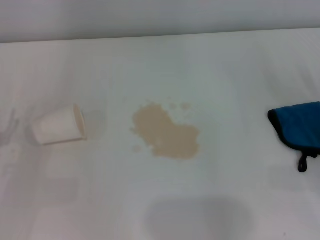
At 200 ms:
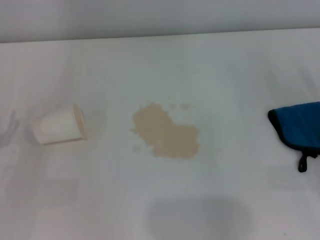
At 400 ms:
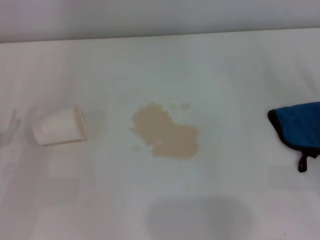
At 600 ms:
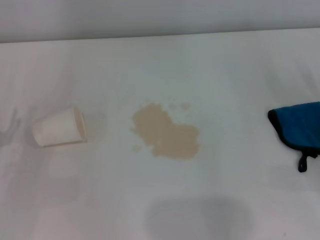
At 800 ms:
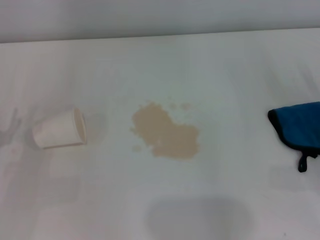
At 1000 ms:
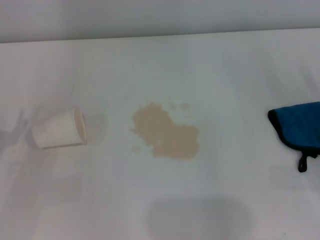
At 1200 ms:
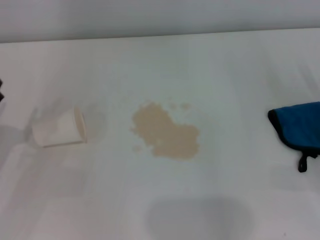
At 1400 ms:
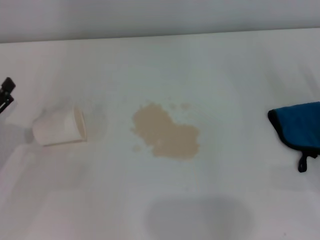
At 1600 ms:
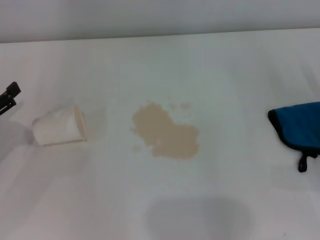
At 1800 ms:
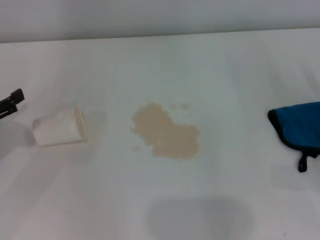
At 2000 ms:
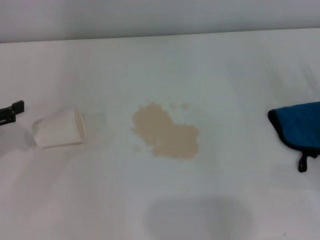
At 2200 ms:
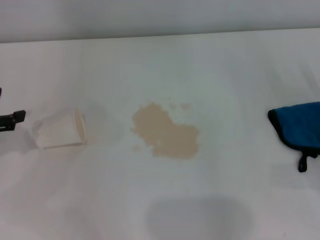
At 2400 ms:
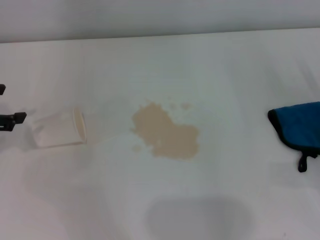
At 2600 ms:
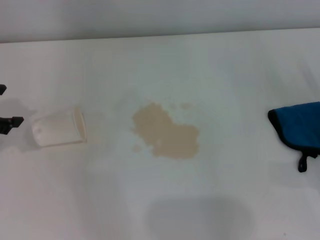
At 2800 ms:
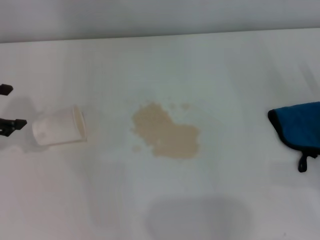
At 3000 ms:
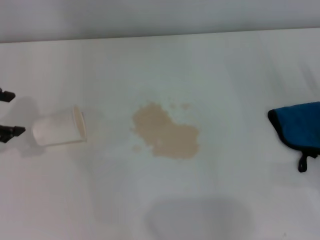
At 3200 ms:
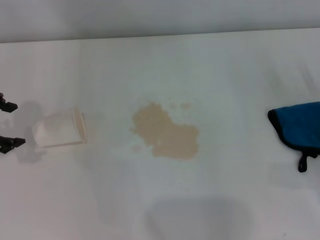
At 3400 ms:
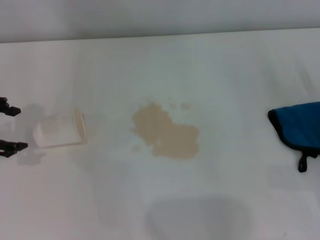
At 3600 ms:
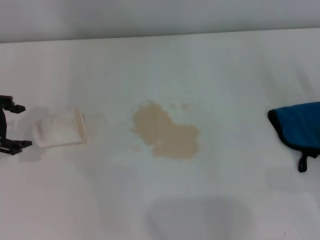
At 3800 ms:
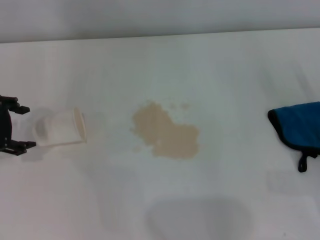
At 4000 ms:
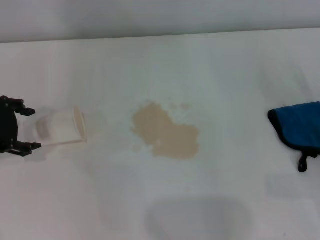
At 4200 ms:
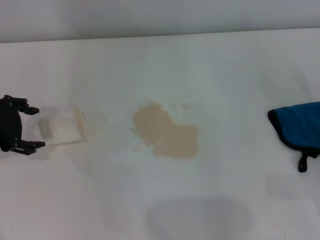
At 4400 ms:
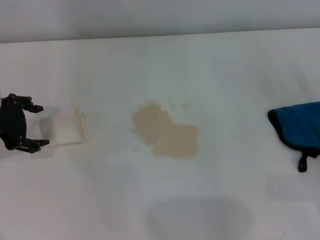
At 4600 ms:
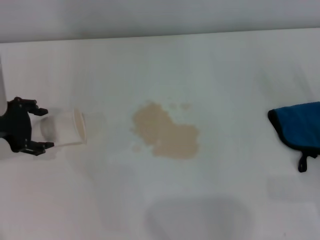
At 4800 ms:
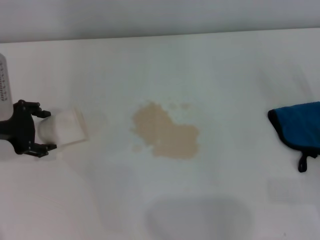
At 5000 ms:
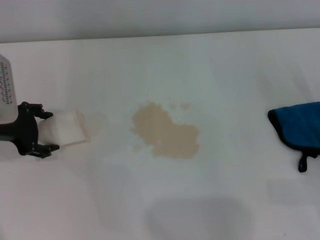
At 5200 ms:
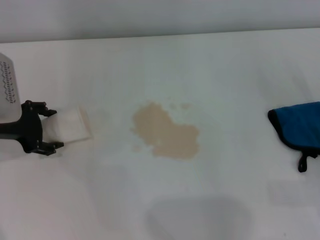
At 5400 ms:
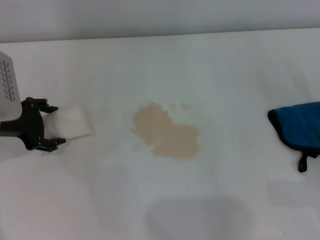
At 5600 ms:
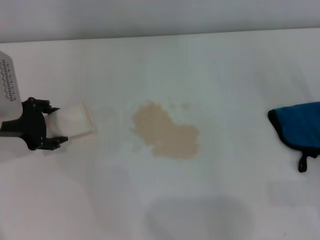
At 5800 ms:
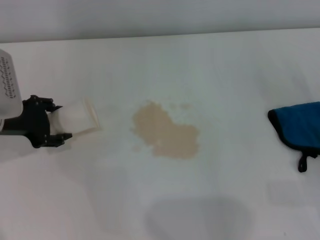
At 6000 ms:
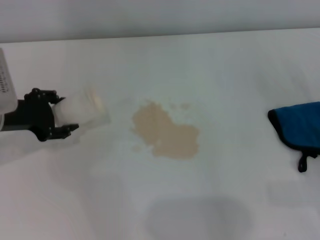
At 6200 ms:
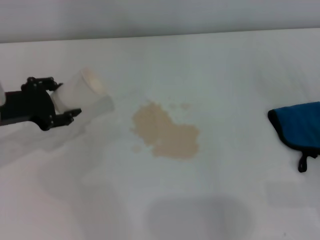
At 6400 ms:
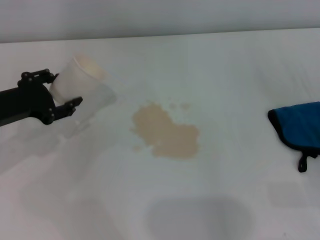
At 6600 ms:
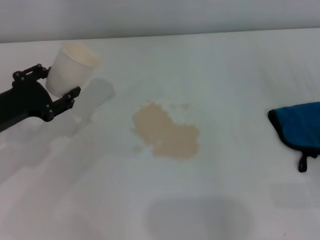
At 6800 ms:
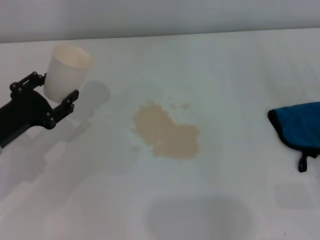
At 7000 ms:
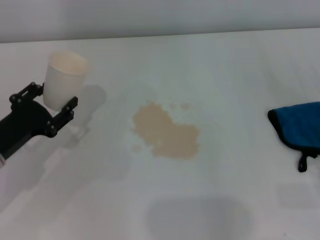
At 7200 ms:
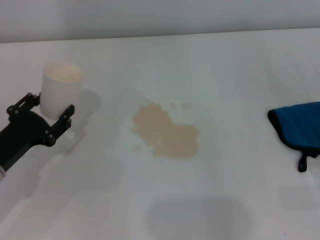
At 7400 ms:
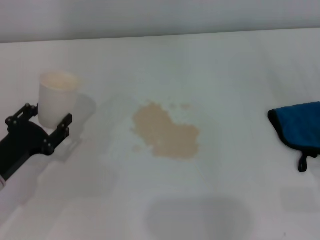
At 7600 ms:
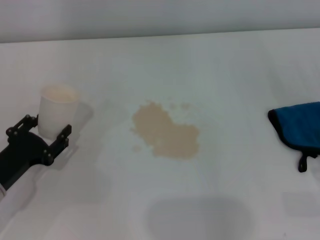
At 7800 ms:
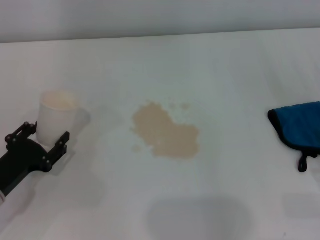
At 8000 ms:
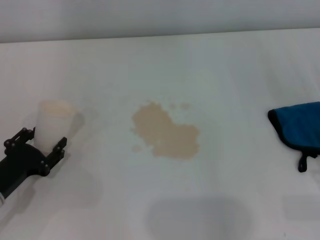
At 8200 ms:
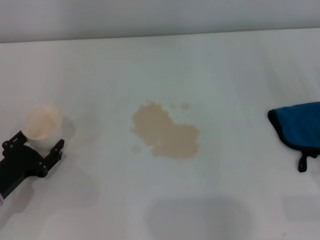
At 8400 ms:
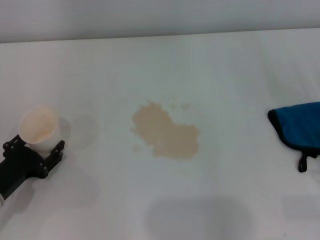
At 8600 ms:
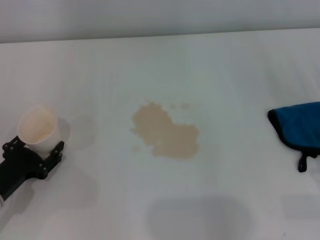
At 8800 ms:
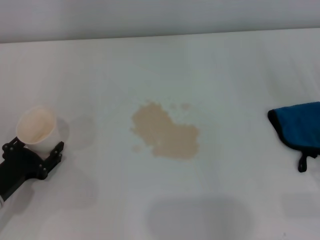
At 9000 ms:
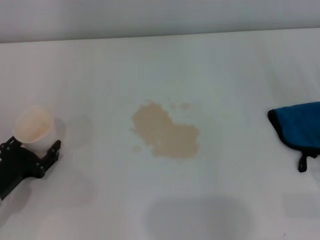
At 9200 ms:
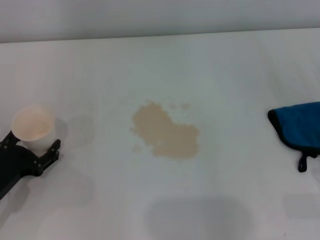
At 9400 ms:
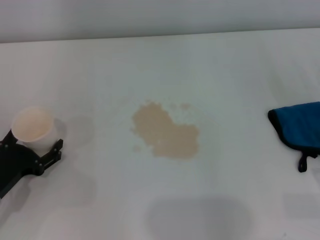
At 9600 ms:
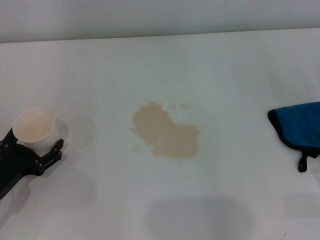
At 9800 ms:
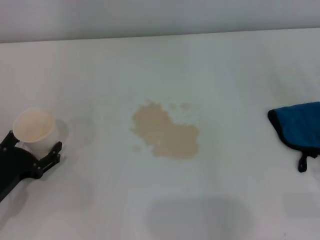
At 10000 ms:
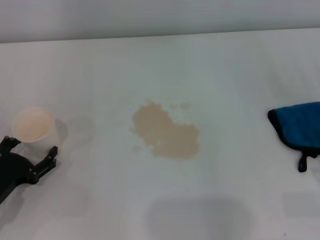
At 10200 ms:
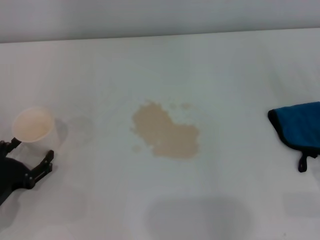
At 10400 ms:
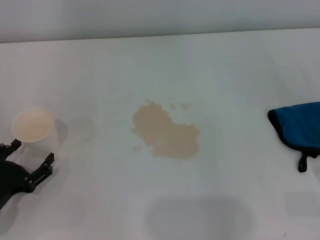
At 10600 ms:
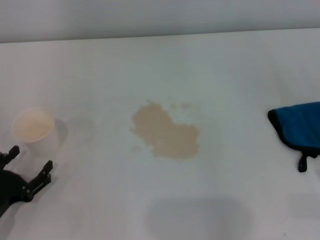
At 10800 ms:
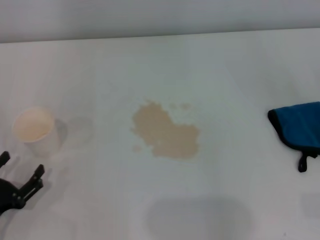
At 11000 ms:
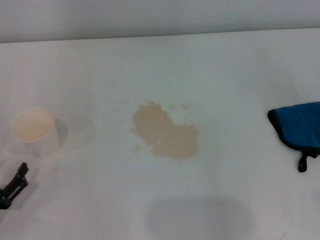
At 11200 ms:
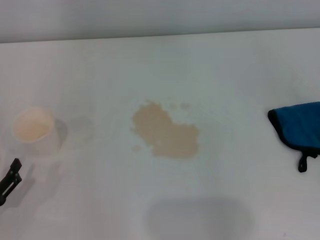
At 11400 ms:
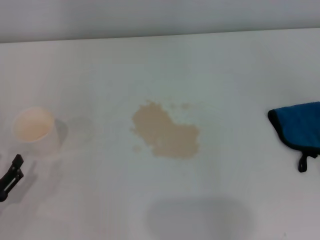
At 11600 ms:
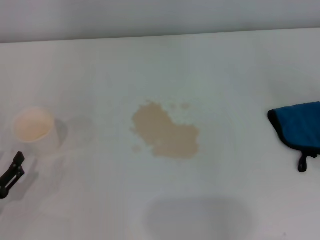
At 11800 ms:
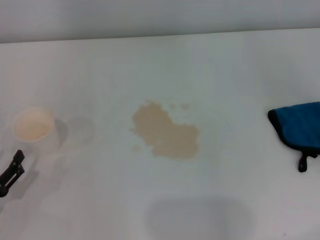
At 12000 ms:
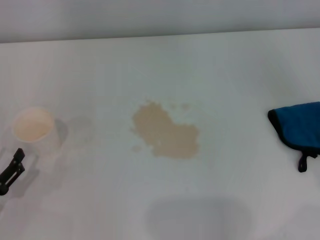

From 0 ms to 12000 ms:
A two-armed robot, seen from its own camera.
Step, from 0 ms to 5400 ms: Grasp the paper cup with the left gripper.
Step, from 5600 ms to 9800 ms: Stand the paper cup upright with the left gripper.
From 1600 ms to 3000 ms: The left gripper travels upward and forward by about 15 cm.
From 3000 ms to 4400 ms: The left gripper goes some 5 cm downward.
From 4400 ms to 6000 ms: The left gripper closes up.
From 6000 ms to 7600 ms: The left gripper shifts approximately 15 cm backward and downward.
From 7600 ms to 9000 ms: The grippers make only small movements.
From 9000 ms to 10400 ms: The left gripper opens up.

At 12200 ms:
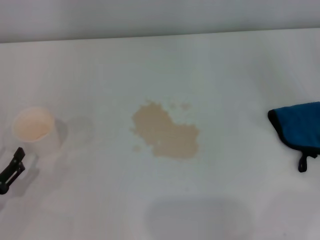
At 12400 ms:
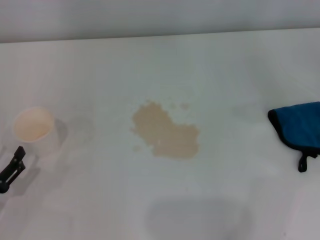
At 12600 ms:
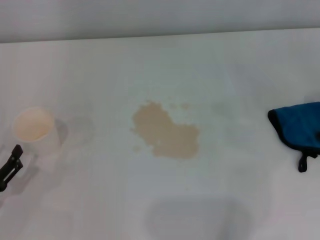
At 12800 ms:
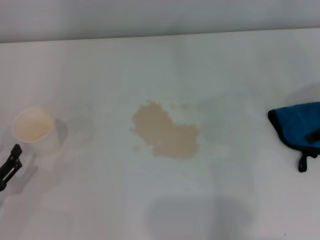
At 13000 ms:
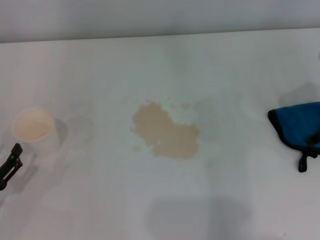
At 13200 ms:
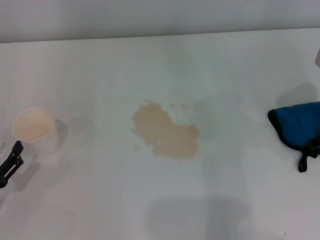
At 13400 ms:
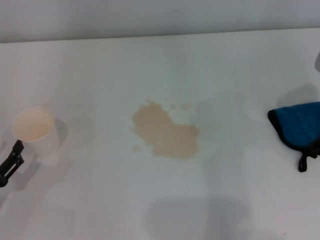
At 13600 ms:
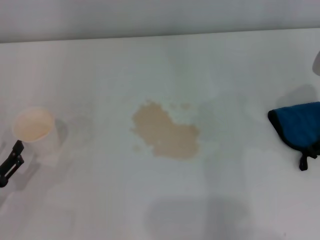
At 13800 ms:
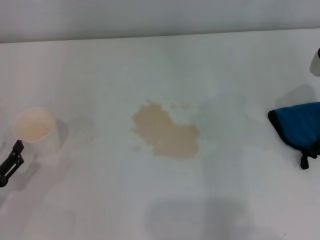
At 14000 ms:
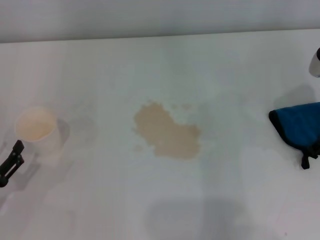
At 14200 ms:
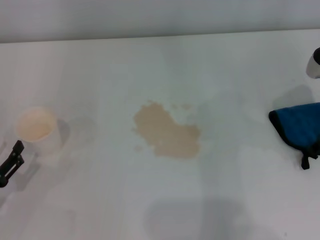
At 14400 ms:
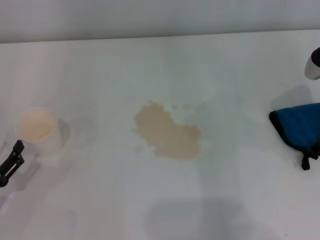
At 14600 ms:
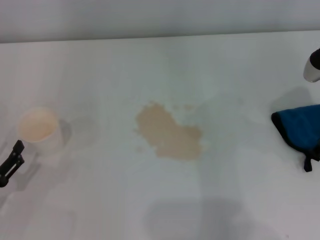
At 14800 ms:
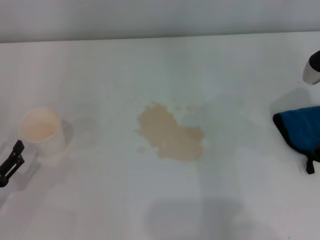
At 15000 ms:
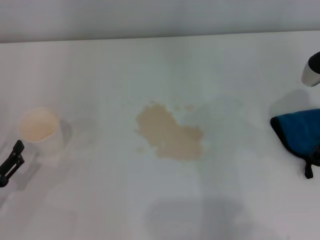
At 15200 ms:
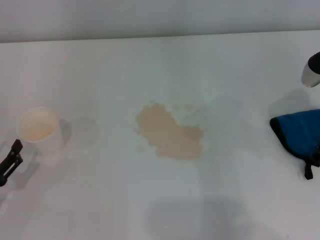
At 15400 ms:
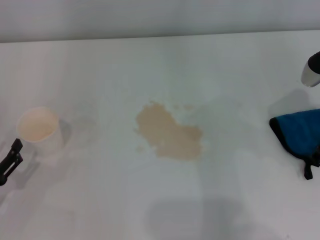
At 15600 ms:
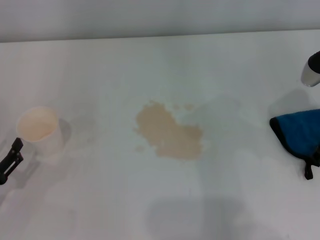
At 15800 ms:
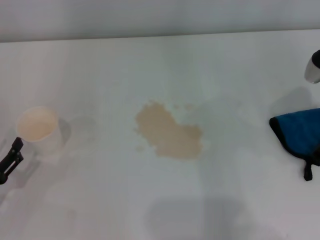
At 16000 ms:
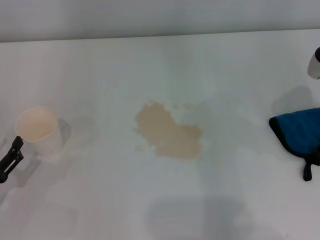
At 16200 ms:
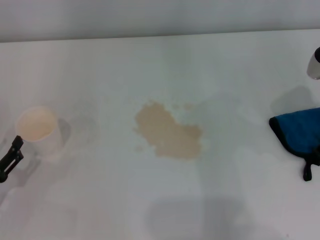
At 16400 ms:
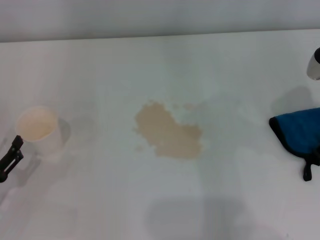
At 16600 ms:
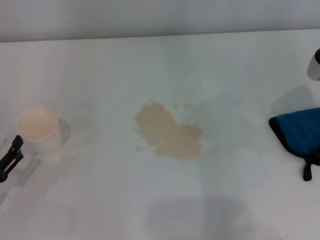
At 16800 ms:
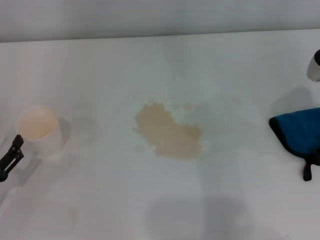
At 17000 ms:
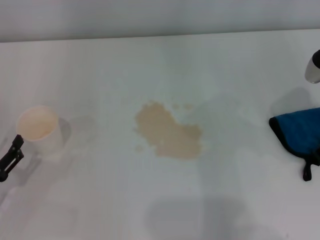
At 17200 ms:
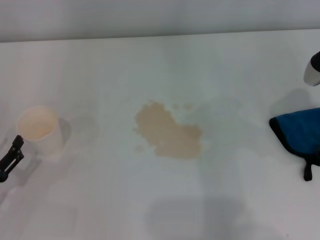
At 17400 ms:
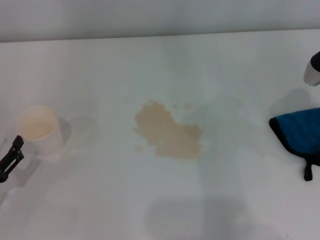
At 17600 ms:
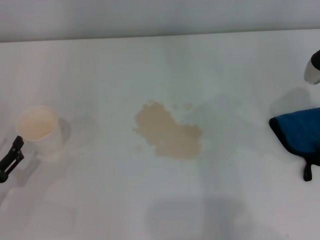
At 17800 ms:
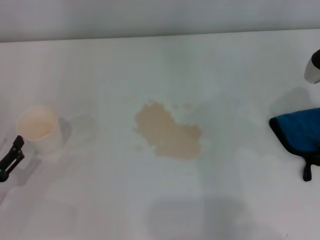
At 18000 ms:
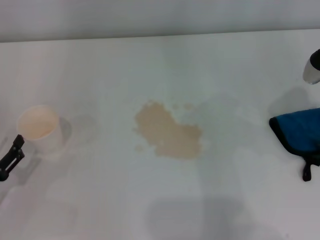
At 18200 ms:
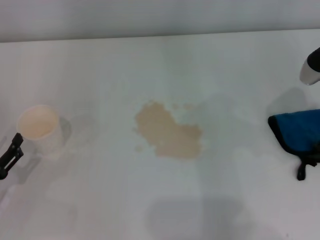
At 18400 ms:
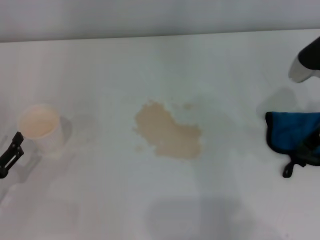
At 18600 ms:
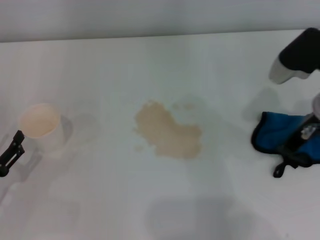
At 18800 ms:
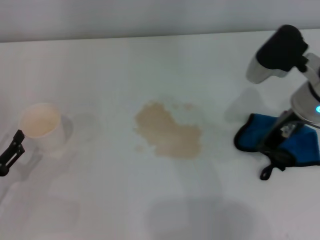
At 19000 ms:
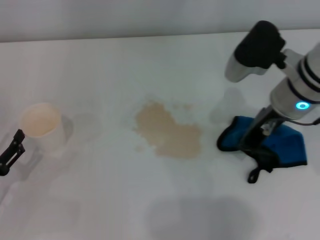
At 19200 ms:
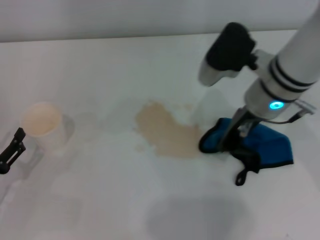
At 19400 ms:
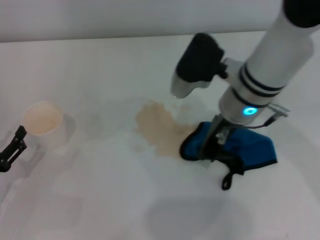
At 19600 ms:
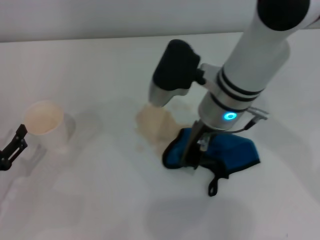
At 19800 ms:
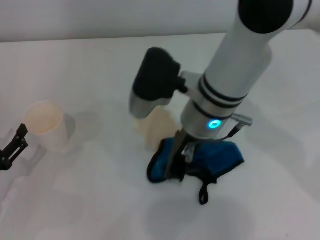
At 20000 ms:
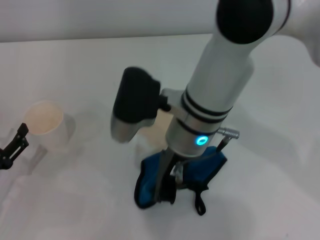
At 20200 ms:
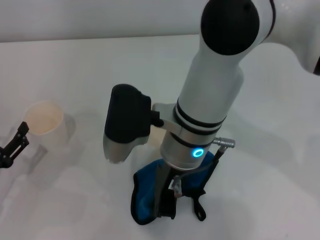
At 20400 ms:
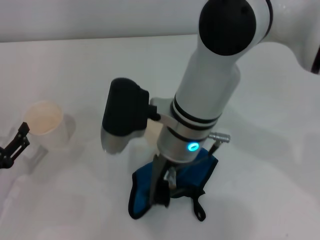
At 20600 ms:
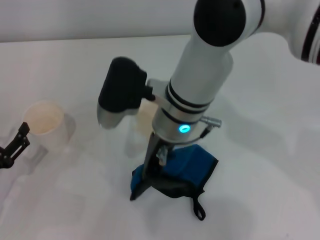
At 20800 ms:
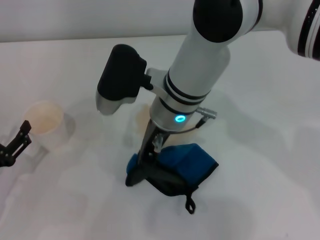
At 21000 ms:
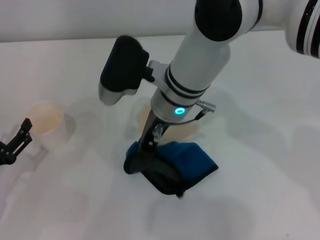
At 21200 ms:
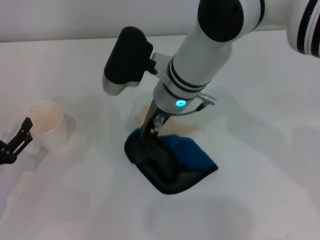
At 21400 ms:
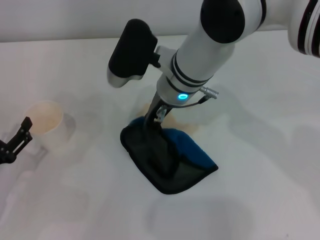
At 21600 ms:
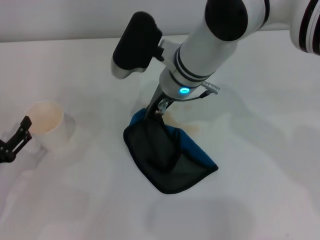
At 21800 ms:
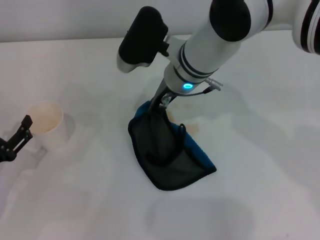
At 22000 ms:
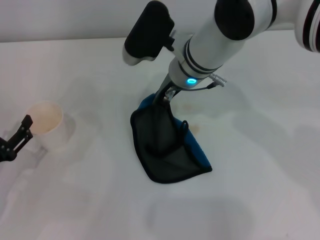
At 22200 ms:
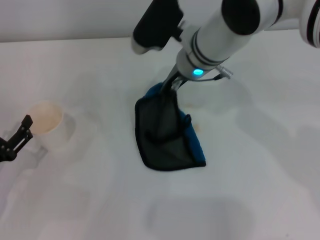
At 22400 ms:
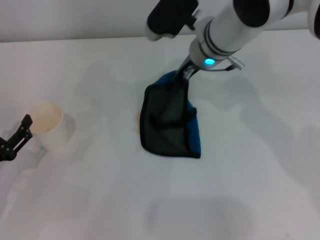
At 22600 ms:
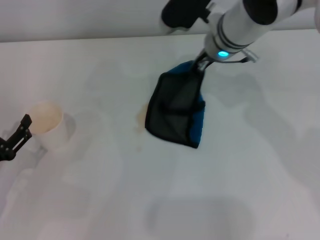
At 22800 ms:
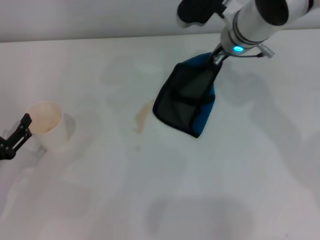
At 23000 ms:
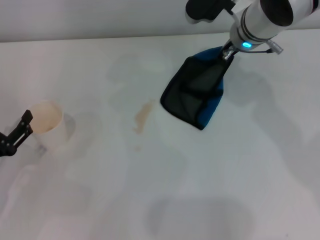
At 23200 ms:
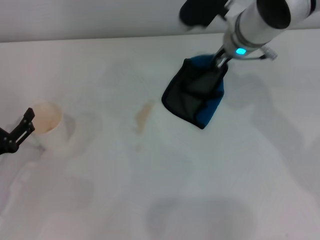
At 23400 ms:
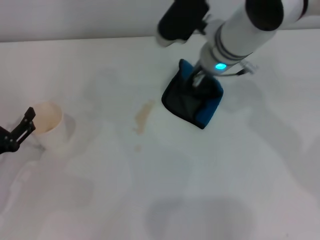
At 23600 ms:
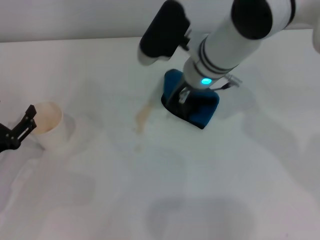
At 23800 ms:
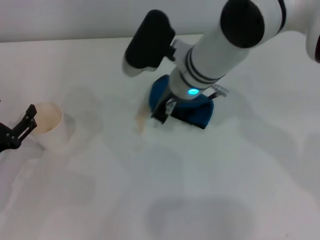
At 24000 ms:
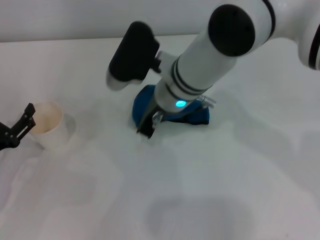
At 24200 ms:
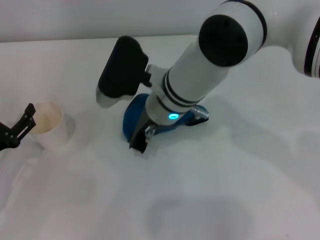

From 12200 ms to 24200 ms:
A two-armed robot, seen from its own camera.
Step, from 12200 ms to 18000 ms: Grasp the rag with the right gripper.
From 13800 ms to 16600 ms: The grippers make only small movements.
From 16600 ms to 18200 ms: The right gripper closes its fingers.
From 18200 ms to 19800 ms: The right gripper shifts some 25 cm to the left.
From 19800 ms to 21200 ms: The right gripper ends up some 5 cm from where it was.
From 21200 ms to 22600 ms: The right gripper shifts approximately 10 cm to the right and forward.
From 22600 ms to 24200 ms: The right gripper moves to the left and backward, some 15 cm.
